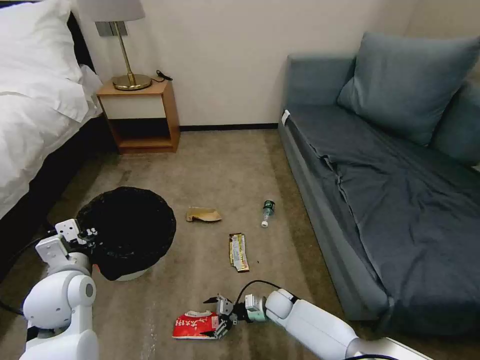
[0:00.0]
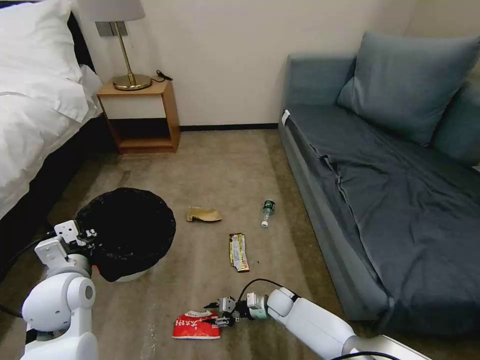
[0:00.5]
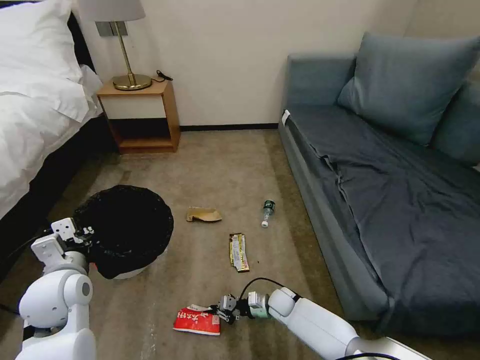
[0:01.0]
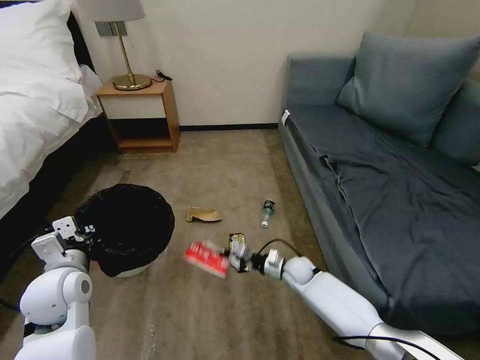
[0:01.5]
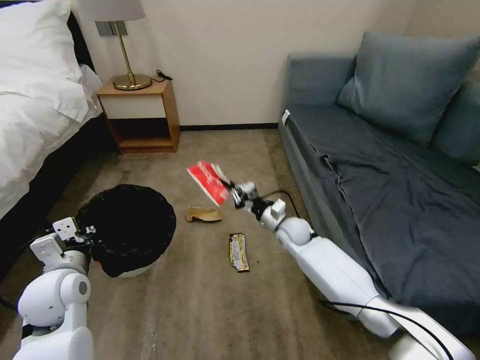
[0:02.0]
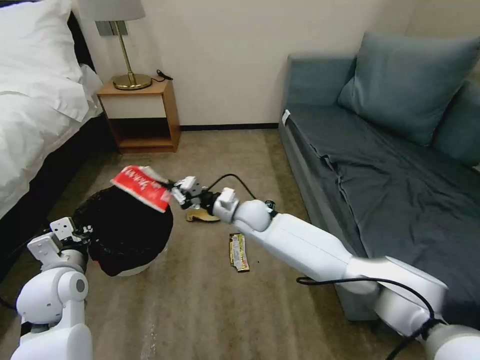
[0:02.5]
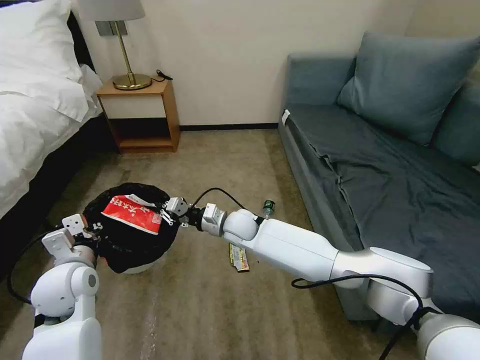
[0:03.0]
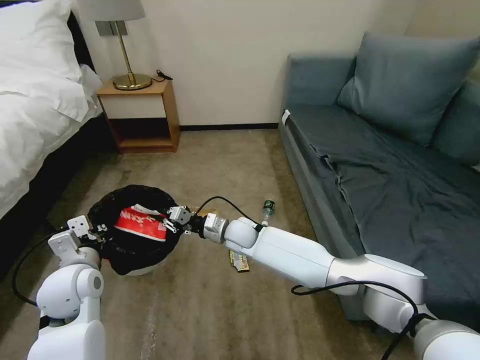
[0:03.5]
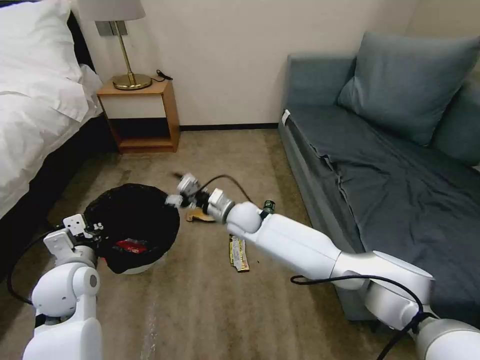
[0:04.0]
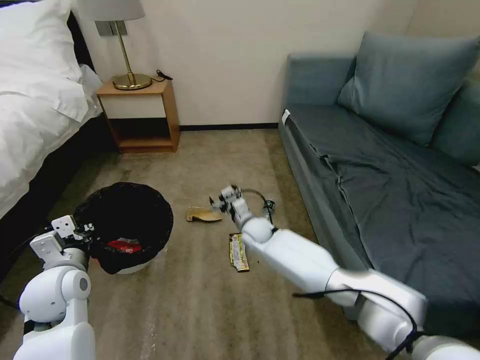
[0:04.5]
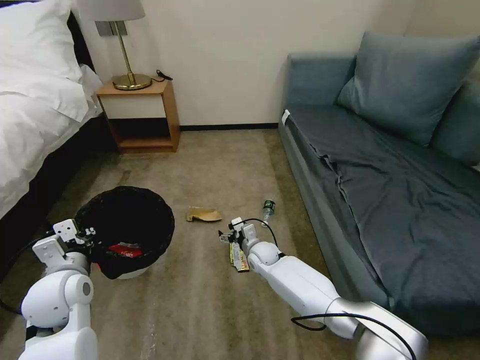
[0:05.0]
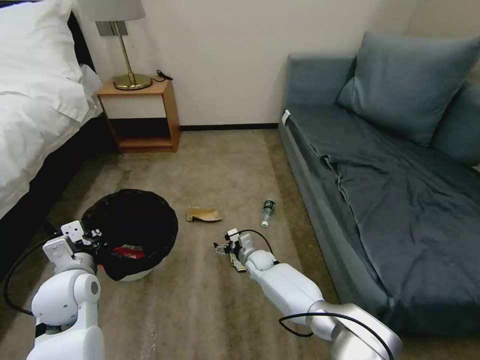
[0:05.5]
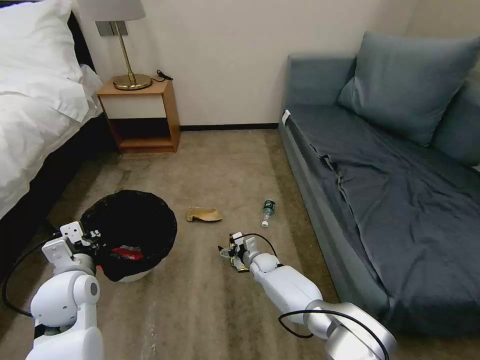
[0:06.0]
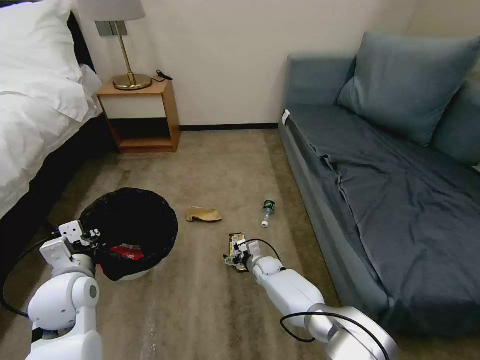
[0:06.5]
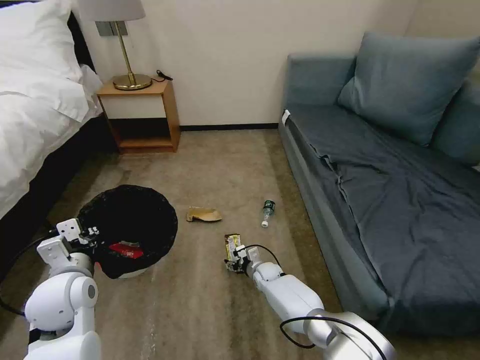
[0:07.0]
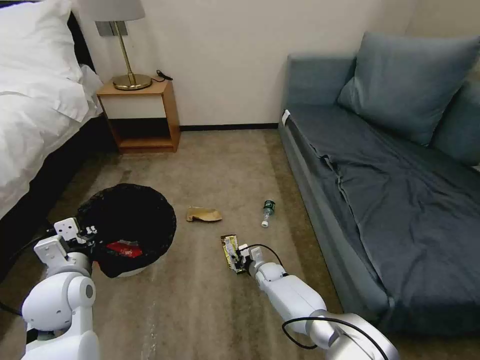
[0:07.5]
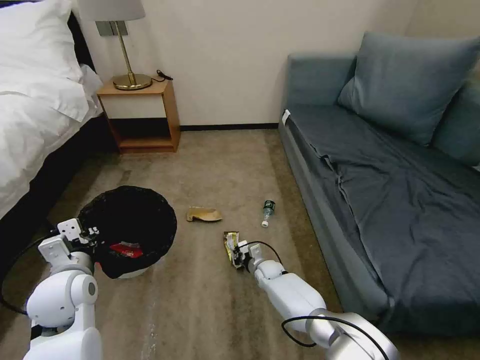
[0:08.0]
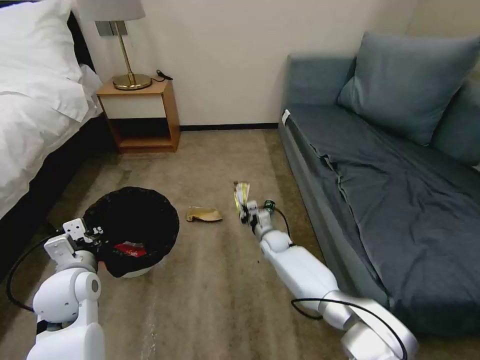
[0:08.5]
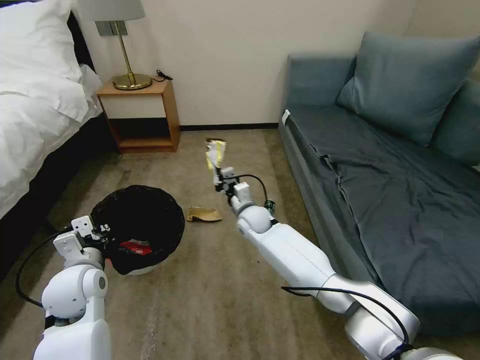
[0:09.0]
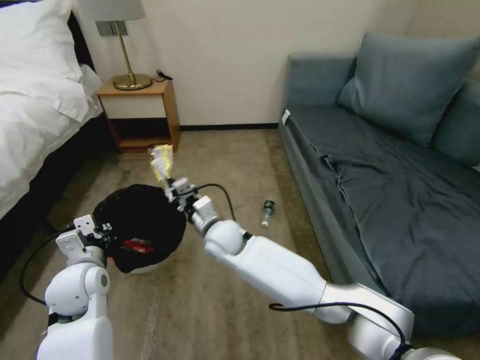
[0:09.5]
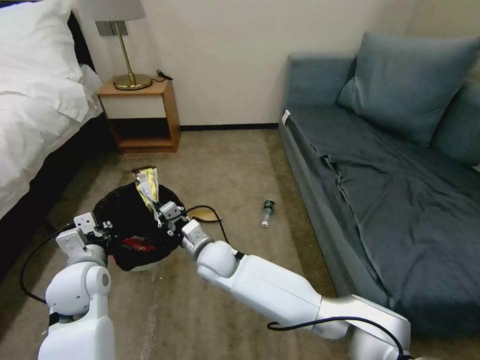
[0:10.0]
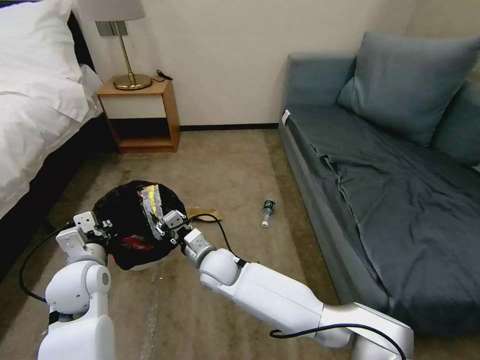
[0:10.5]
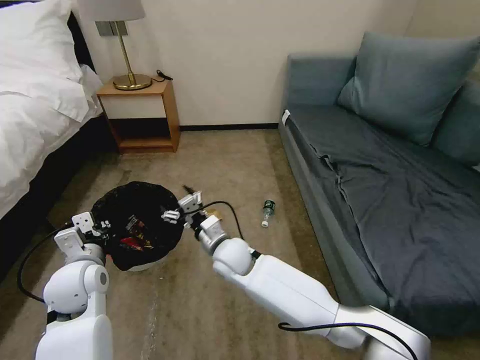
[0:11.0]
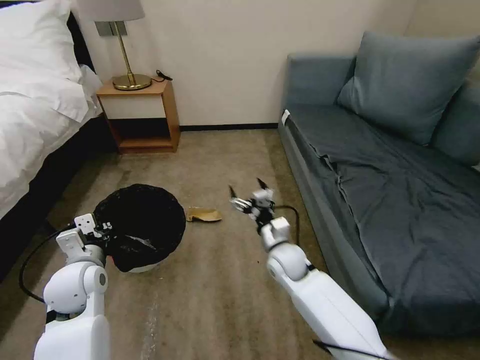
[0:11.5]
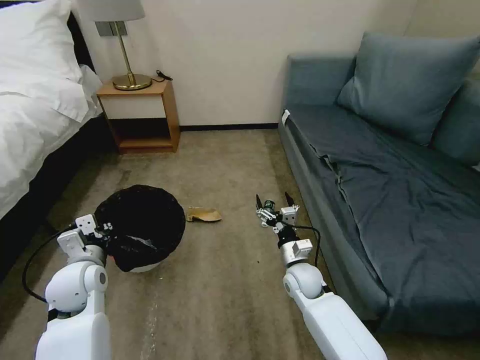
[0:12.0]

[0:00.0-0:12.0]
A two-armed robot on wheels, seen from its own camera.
Task of the whole recording: Pick up the trash bin, then pick up the garbage on the floor and place it into the trash bin.
0:00.0 to 0:02.0: The right gripper moves upward and forward, some 25 cm, and closes its fingers.
0:02.0 to 0:04.0: The right gripper shifts roughly 15 cm to the left and upward, and opens its fingers.
0:04.0 to 0:06.0: The right gripper is displaced downward by about 20 cm.
0:06.0 to 0:08.0: The right gripper closes its fingers.
0:08.0 to 0:10.0: The right gripper moves upward and to the left, roughly 25 cm.
0:10.0 to 0:12.0: The right gripper moves to the right, roughly 25 cm, and opens its fingers.

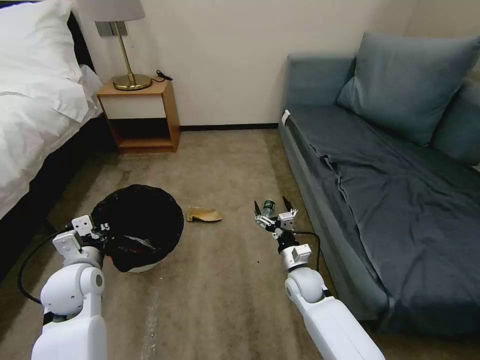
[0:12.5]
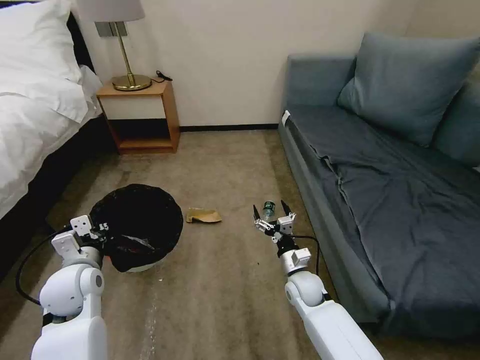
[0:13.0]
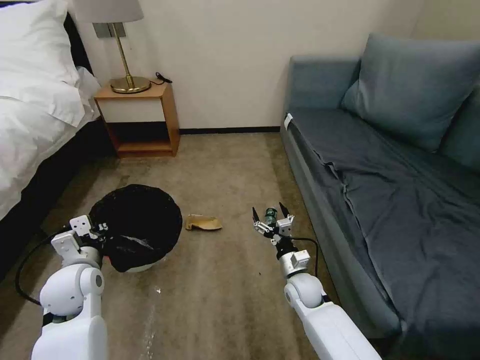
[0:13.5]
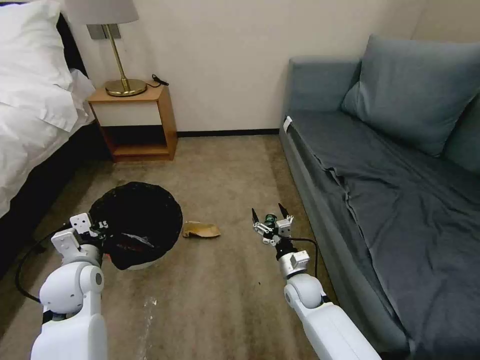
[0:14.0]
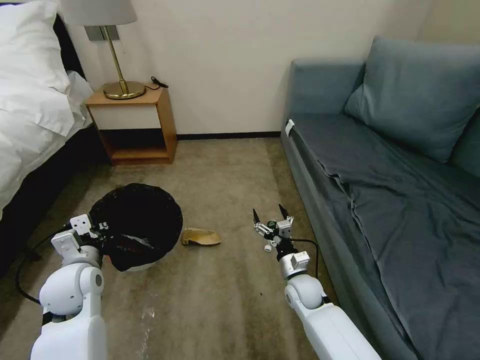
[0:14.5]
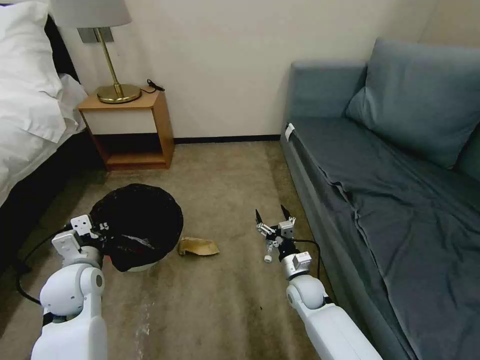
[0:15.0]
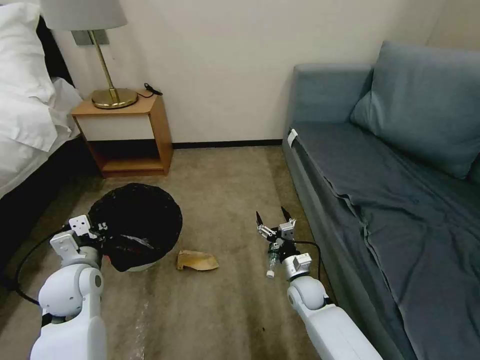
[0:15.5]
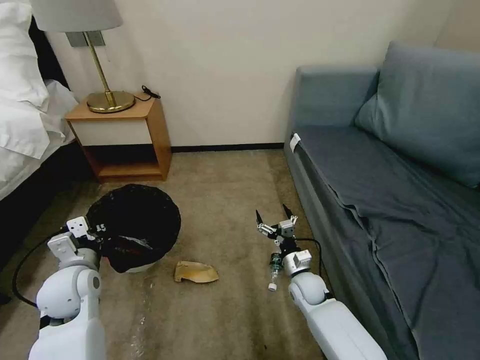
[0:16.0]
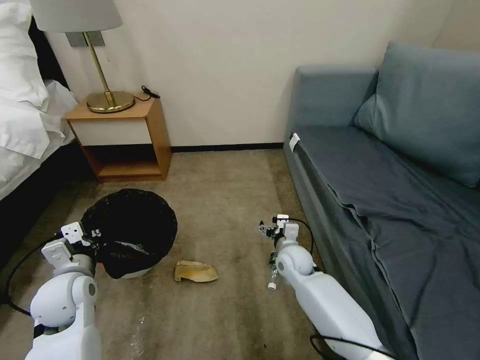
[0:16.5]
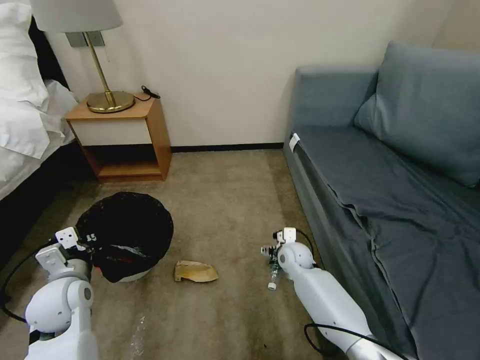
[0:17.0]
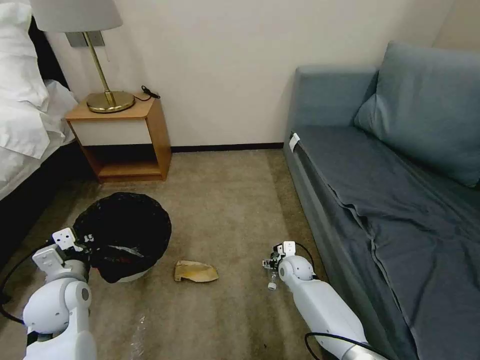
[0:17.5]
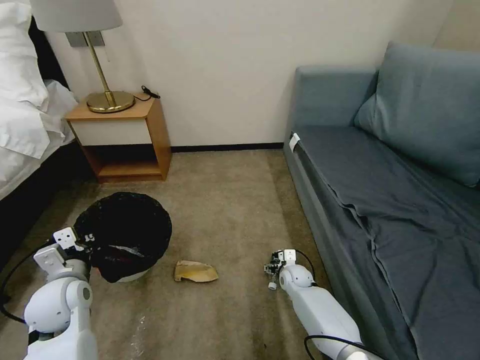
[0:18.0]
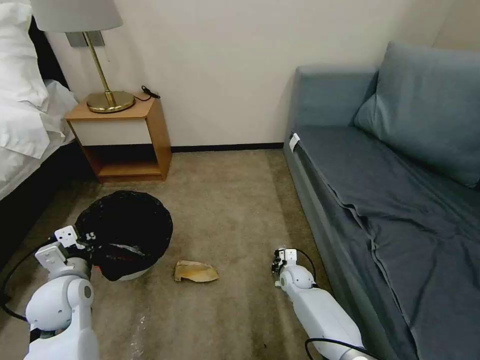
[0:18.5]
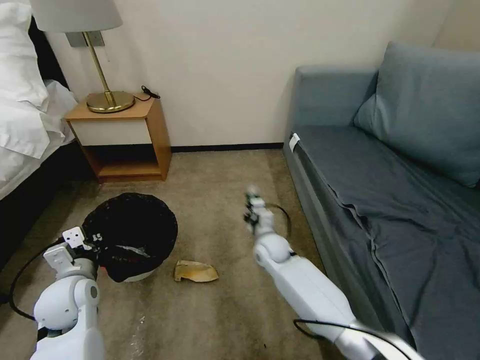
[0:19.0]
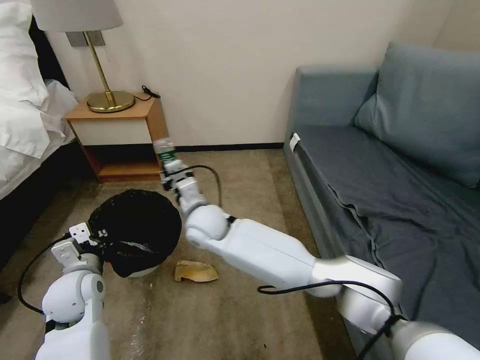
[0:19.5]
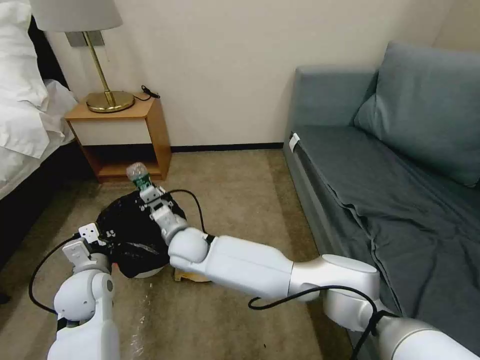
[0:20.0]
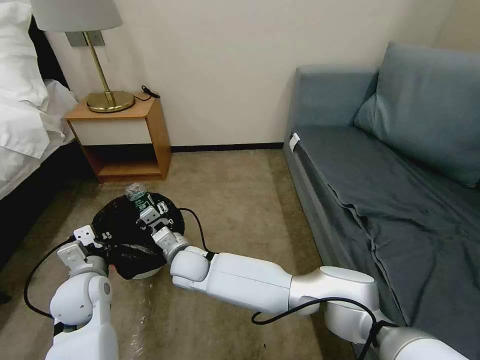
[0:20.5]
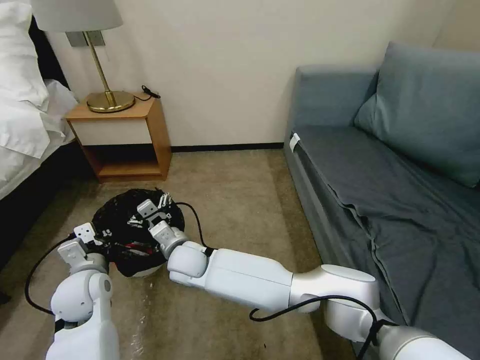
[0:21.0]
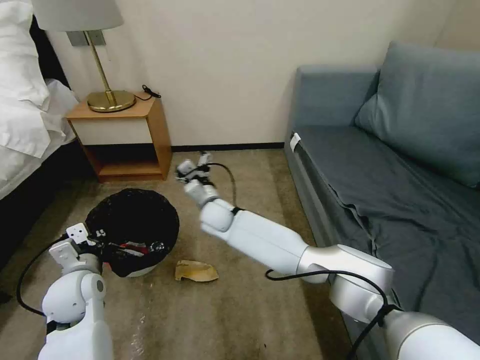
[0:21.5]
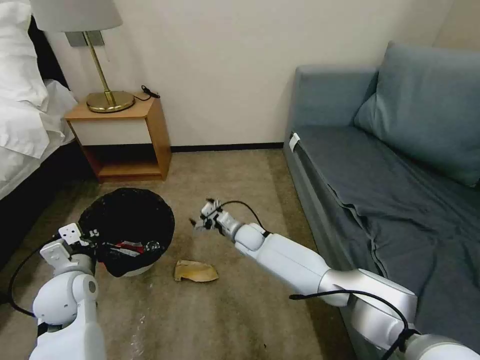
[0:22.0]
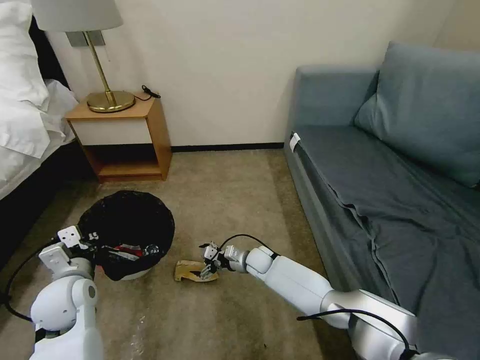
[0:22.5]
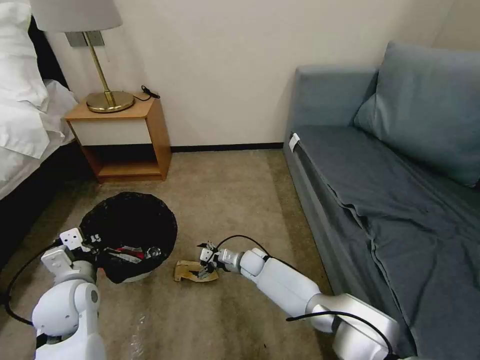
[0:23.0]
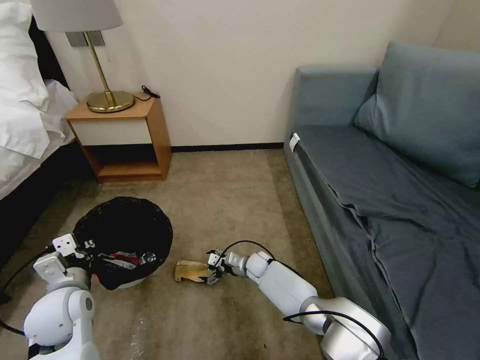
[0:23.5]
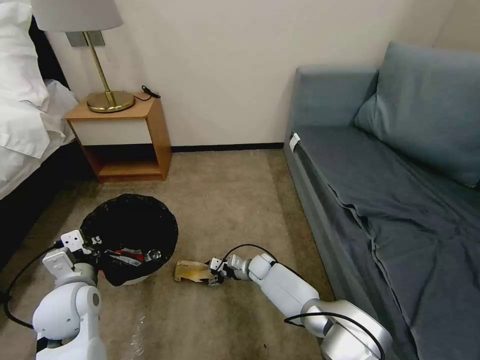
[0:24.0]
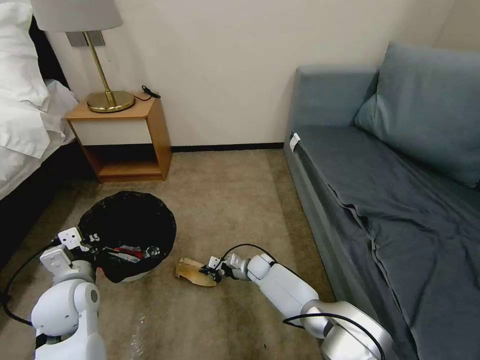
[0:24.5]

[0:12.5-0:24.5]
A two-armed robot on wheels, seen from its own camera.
Task of the whole recording: Pick up the trash bin, then pick up the garbage on the floor and place it into the trash bin.
0:12.5 to 0:14.5: There are only small adjustments of the grippers.
0:14.5 to 0:16.5: The right gripper shifts some 10 cm forward and upward.
0:16.5 to 0:18.5: The right gripper is displaced downward by some 10 cm, and closes up.
0:18.5 to 0:20.5: The right gripper travels to the left and upward by about 35 cm.
0:20.5 to 0:22.5: The right gripper goes approximately 25 cm to the right, downward and forward, and opens up.
0:22.5 to 0:24.5: The right gripper closes up.

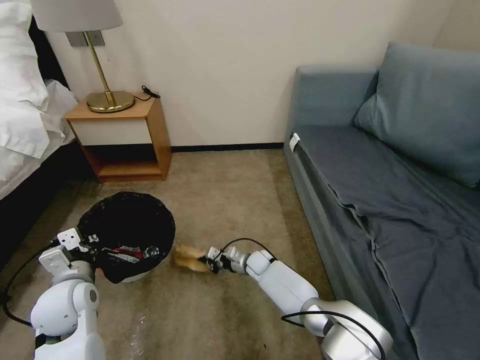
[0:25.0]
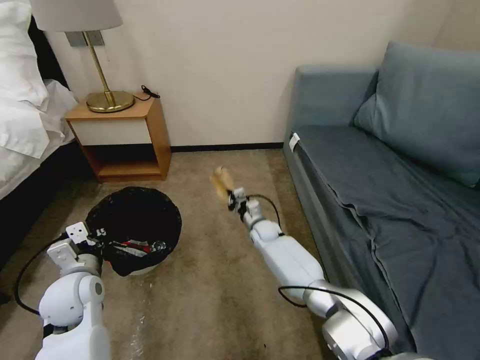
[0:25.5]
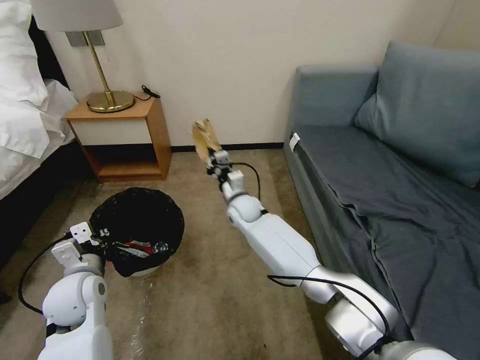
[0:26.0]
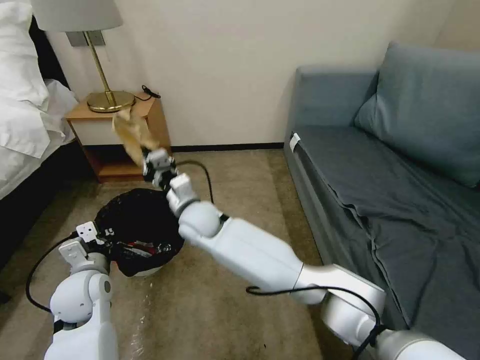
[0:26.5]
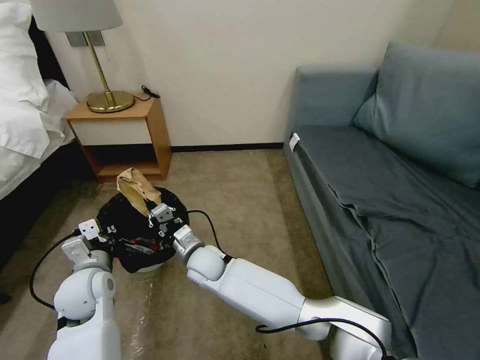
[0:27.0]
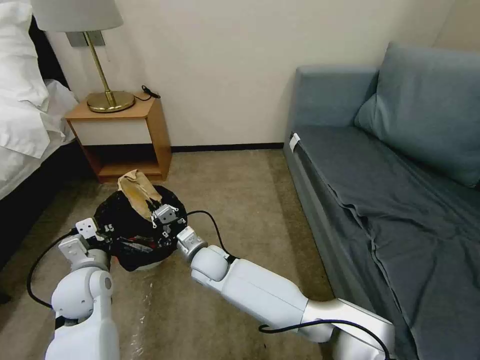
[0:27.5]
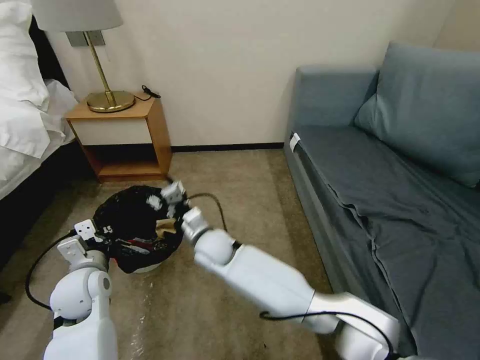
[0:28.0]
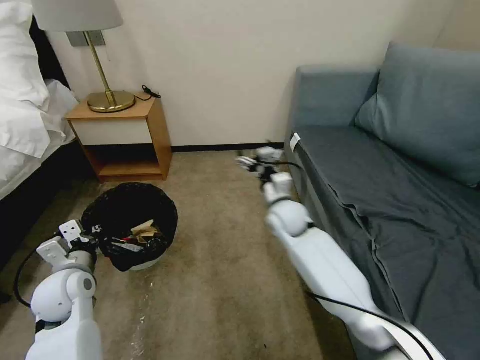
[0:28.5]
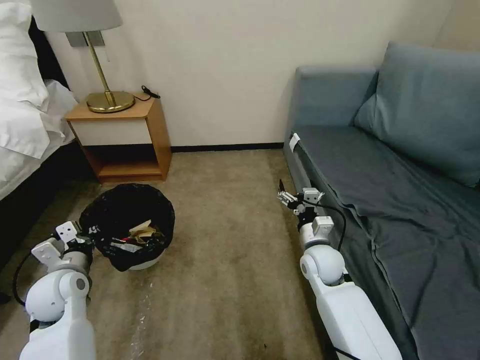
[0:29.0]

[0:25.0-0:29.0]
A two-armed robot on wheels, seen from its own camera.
Task of the whole recording: Pick up the trash bin, then pick up the garbage on the floor and place it into the trash bin.
0:25.0 to 0:27.0: The right gripper heads to the left, upward and backward, covering roughly 25 cm.
0:27.0 to 0:29.0: The left gripper is displaced to the left by about 5 cm, while the right gripper travels to the right by roughly 30 cm, and opens.
